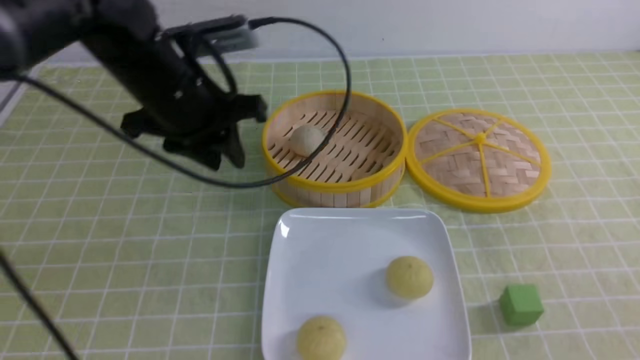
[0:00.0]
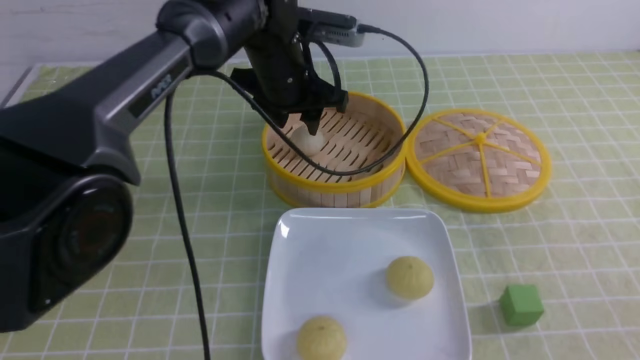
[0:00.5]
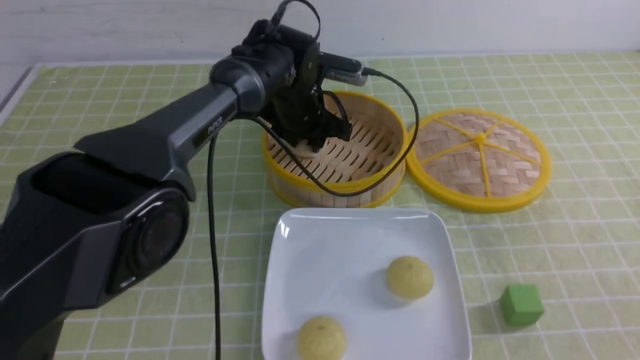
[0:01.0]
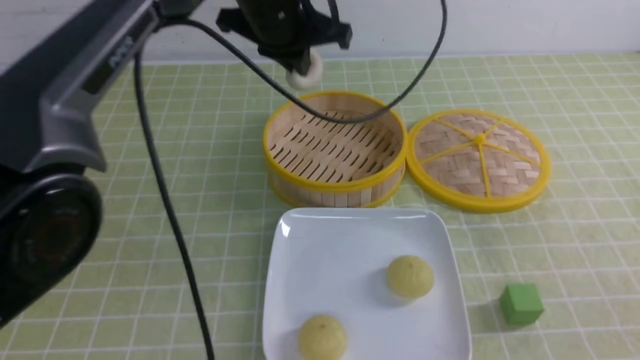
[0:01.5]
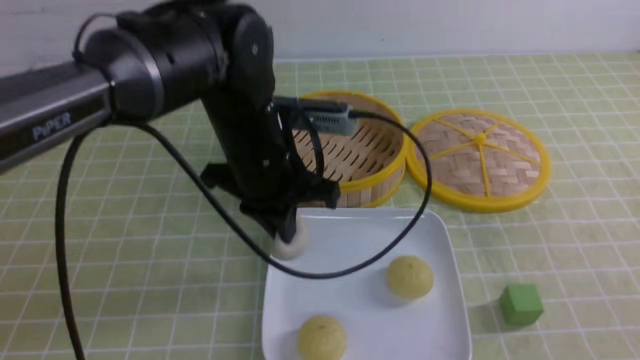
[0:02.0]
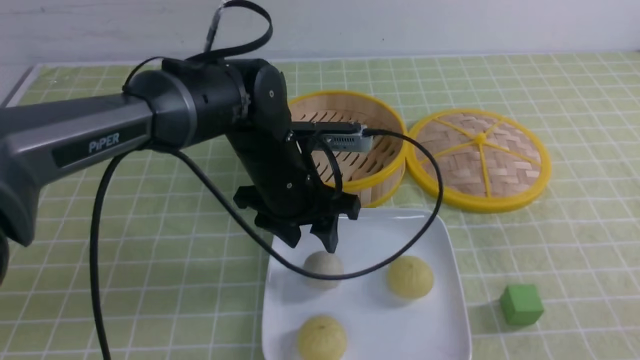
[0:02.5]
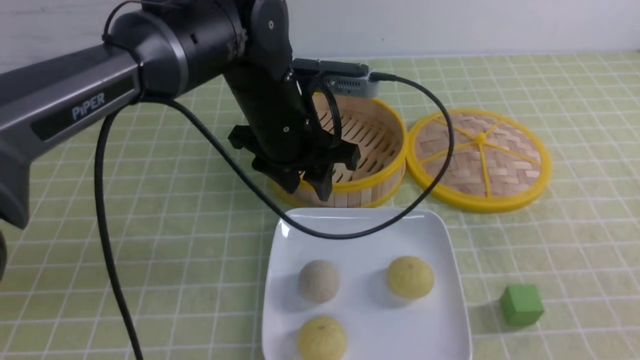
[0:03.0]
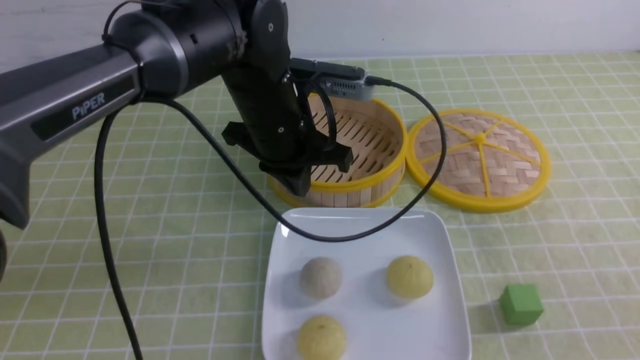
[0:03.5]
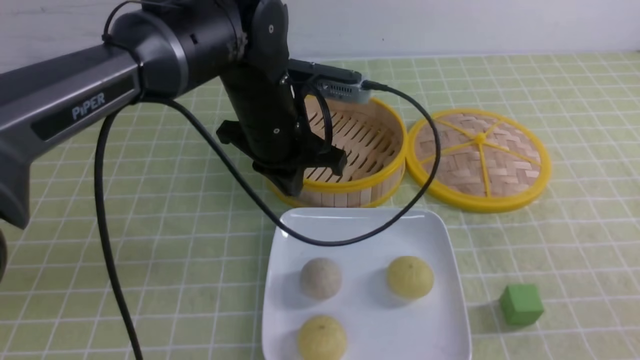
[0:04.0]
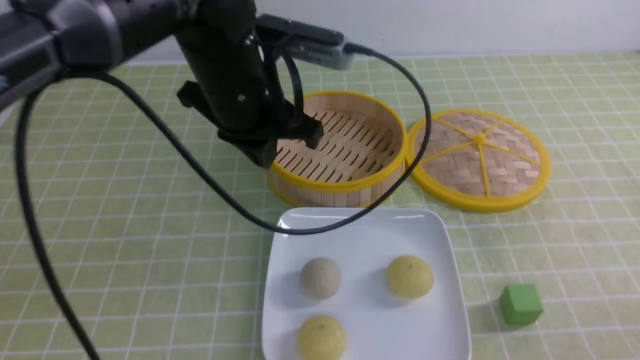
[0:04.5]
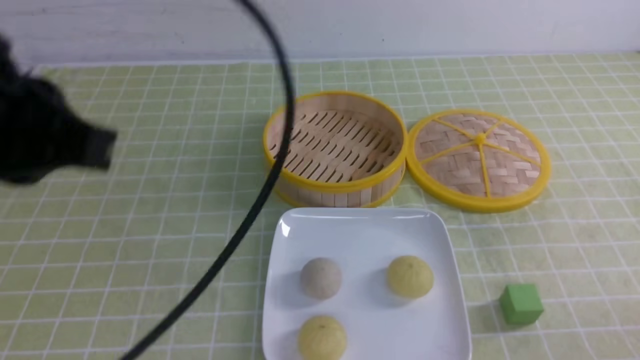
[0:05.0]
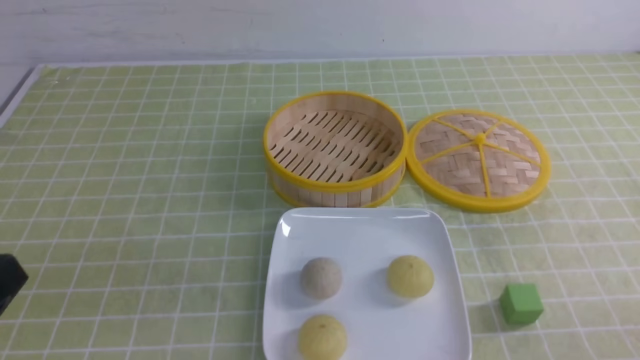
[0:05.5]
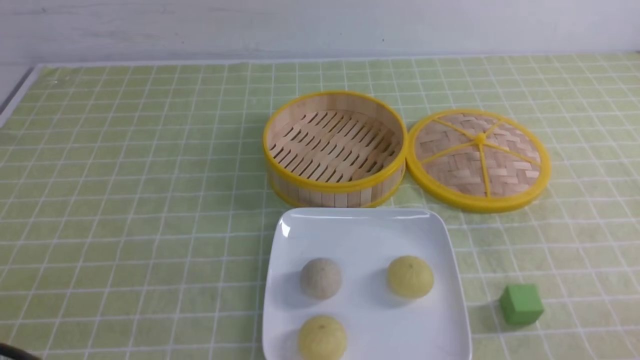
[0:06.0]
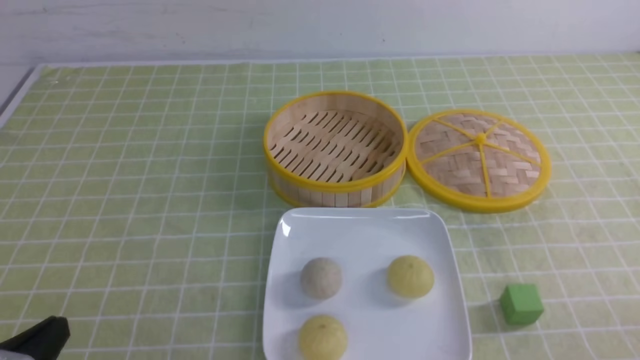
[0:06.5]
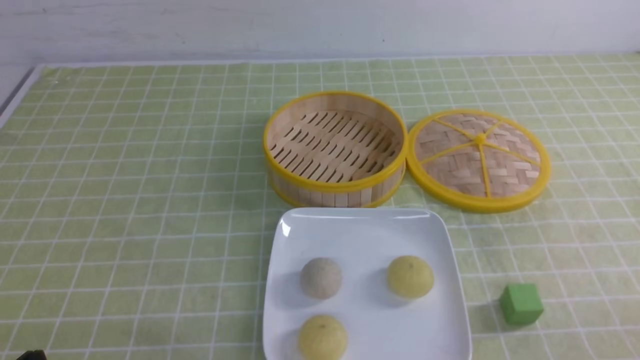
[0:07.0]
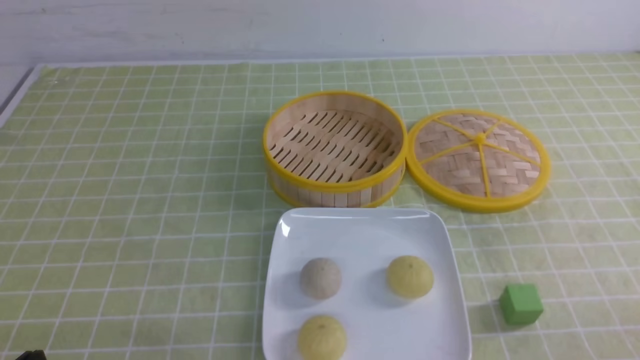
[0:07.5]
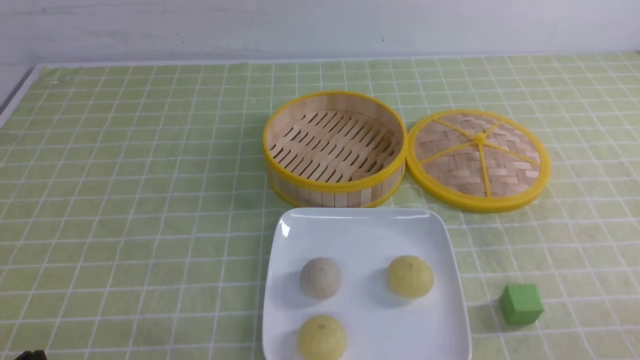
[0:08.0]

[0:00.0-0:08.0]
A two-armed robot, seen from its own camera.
Step, 0:01.5 to 0:02.0: use the left arm to put the steamed stuffed bun into the plate.
0:00.0 to 0:02.0: The left gripper moves to the right, about 10 cm, reaches roughly 10 cm forward, then returns, and closes its fingers.
0:02.0 to 0:04.0: The left gripper opens and closes again.
0:04.0 to 0:06.0: The right gripper heads downward, covering roughly 10 cm; the left gripper travels backward and to the left by about 35 cm.

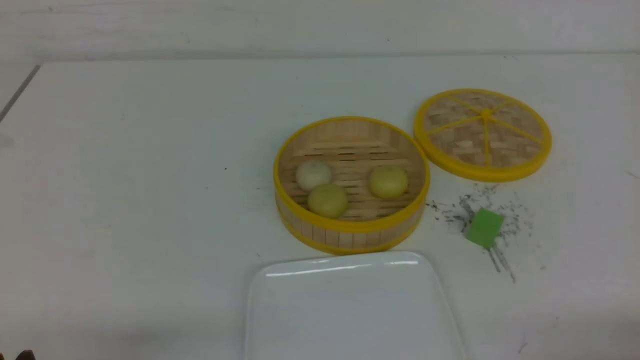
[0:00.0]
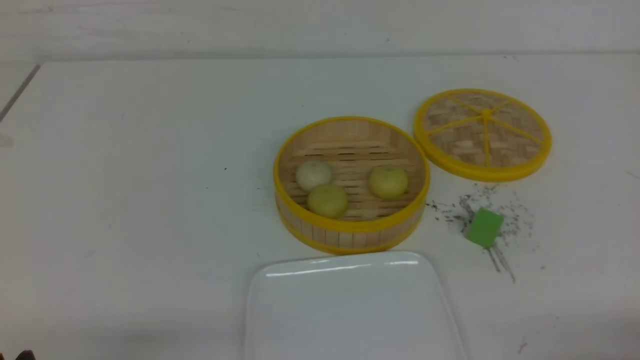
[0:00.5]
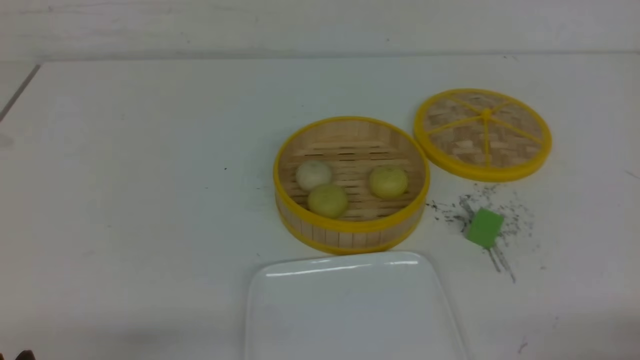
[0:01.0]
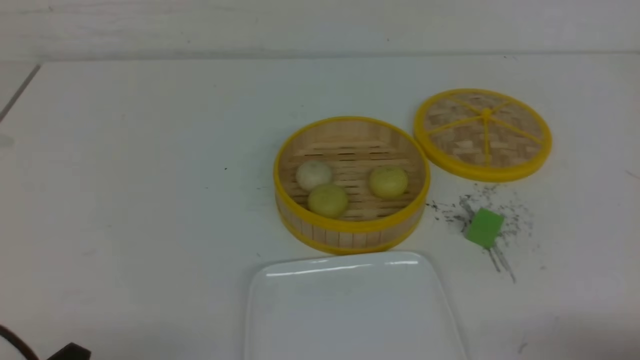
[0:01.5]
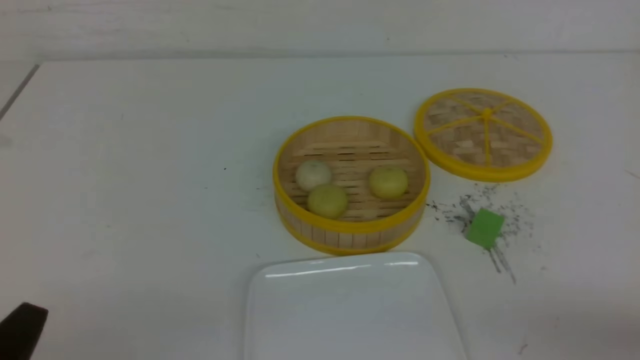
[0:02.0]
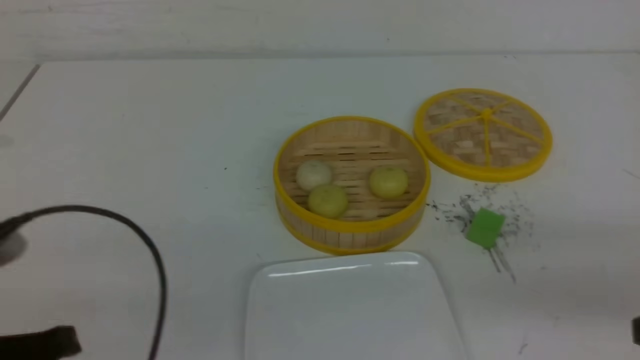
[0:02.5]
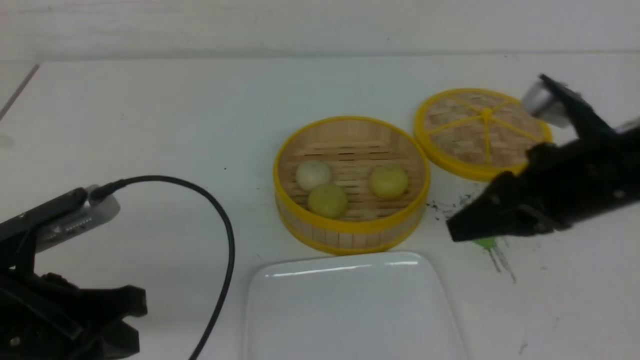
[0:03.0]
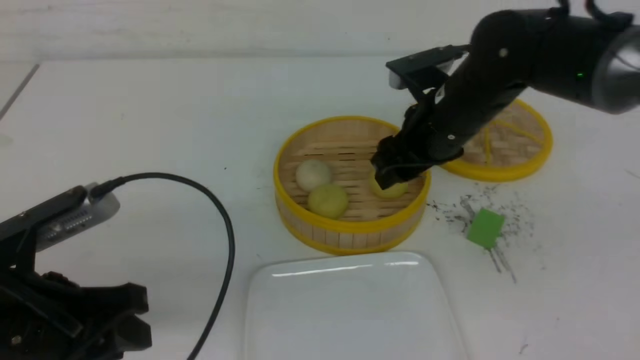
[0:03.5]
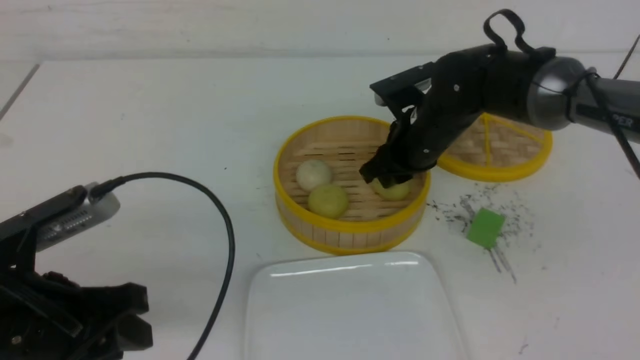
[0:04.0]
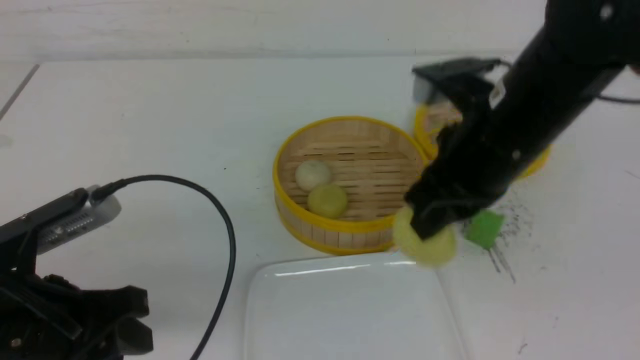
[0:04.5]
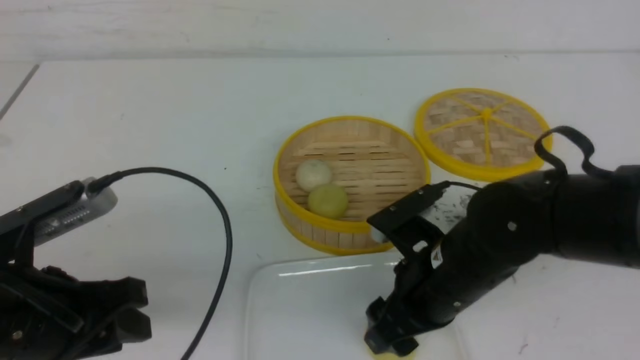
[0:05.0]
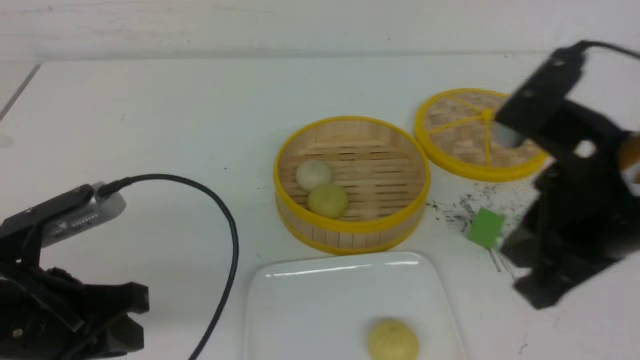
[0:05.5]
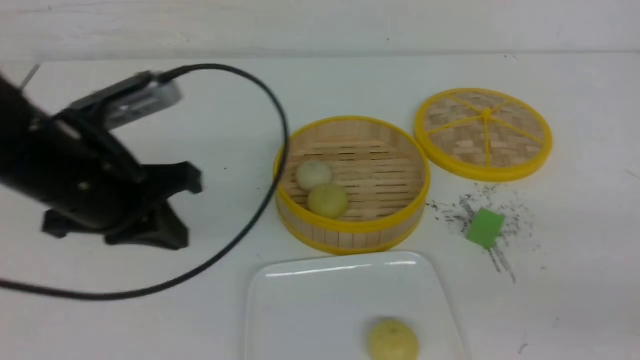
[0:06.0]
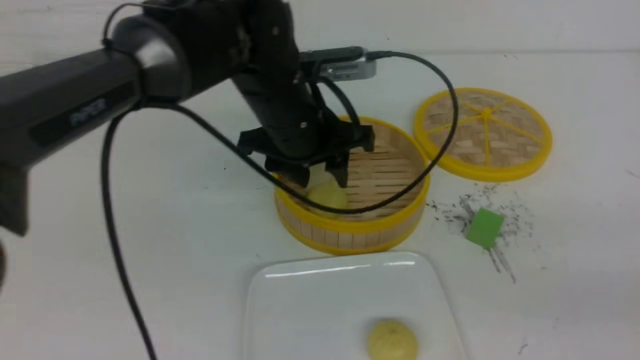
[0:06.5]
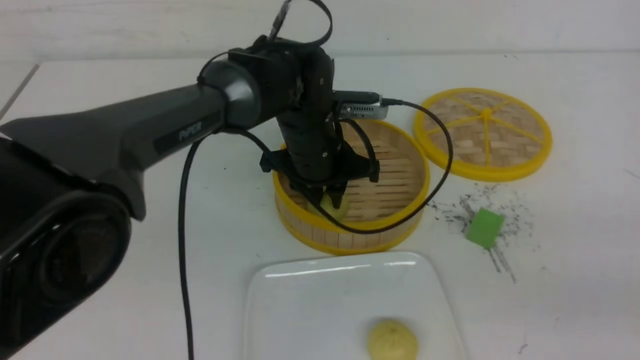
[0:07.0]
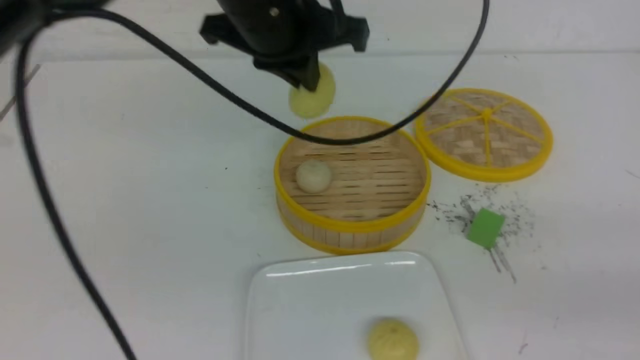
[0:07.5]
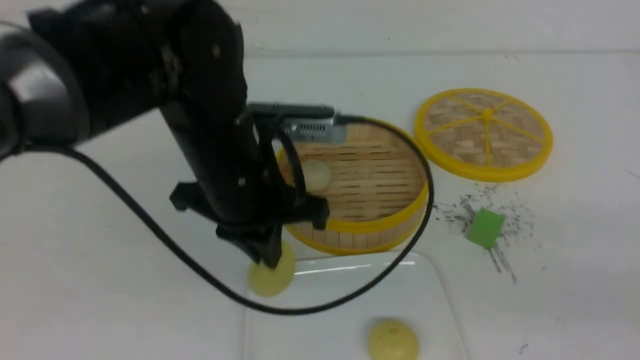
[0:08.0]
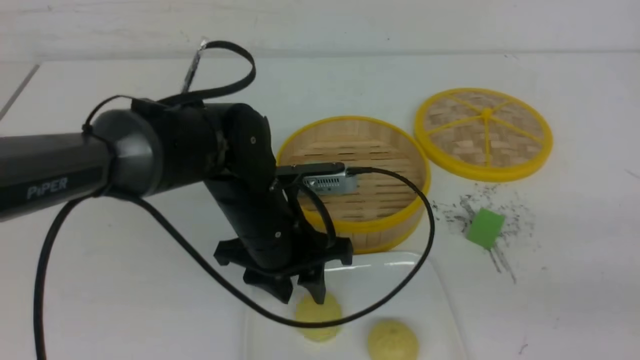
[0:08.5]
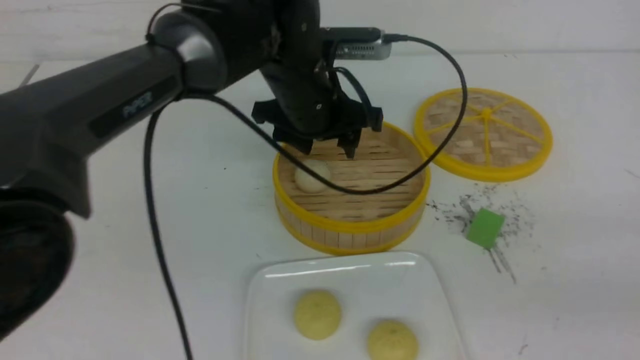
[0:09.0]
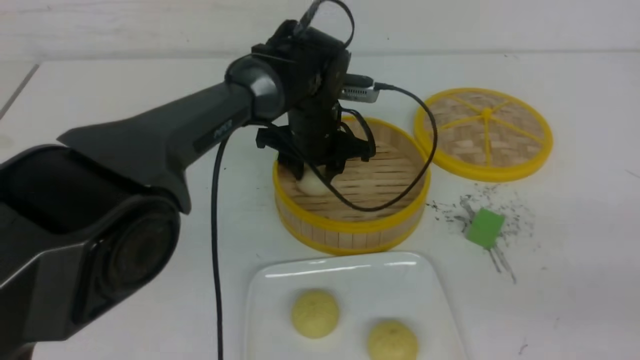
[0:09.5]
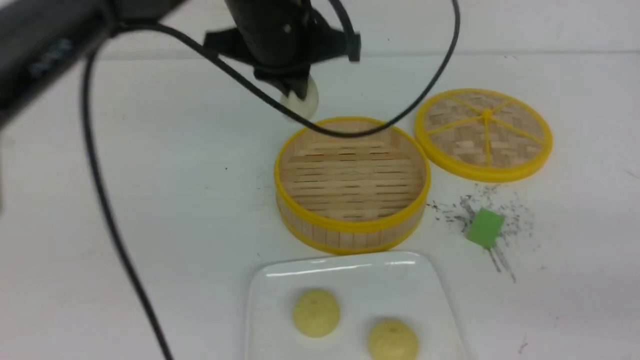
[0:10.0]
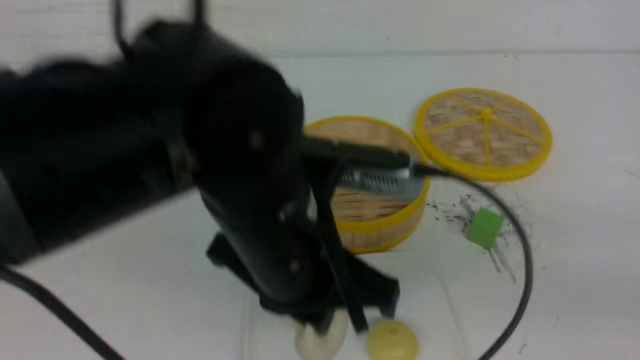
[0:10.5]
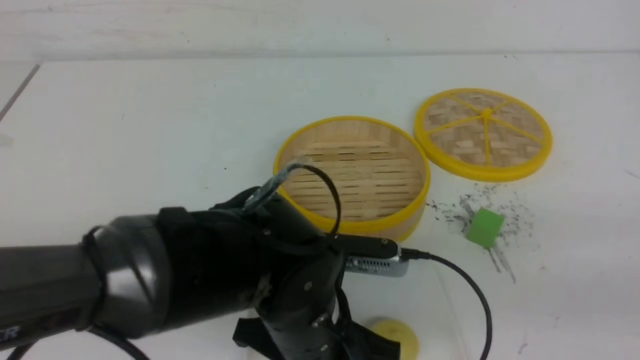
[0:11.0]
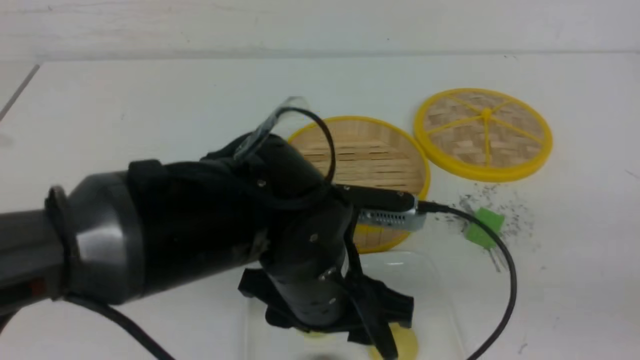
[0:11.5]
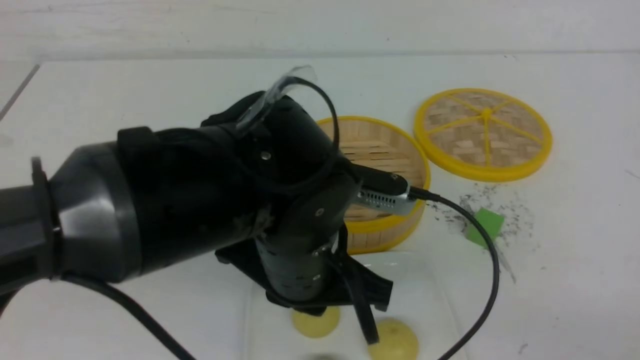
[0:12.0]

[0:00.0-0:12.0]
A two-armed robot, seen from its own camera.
Step, 0:00.0 to 0:04.0: use the right arm to grab the steamed stuffed bun that is closest to it.
Step, 0:04.5 to 0:05.0: use the right arm to put the steamed stuffed bun into the plate.
Step, 0:05.5 to 0:07.0: use the left arm to grab the steamed stuffed bun that is closest to it.
Step, 0:07.5 to 0:08.0: use the left arm to put the steamed stuffed bun into the plate.
Step, 0:09.0 to 0:09.5: use the left arm to grab the steamed stuffed bun that is closest to it.
Step, 0:10.0 to 0:11.0: use the left arm to put the steamed stuffed bun into the plate.
0:02.0 to 0:04.0: The right gripper travels forward and to the left by about 40 cm, and opens, then closes once more. Meanwhile the left gripper travels forward by some 10 cm.
0:04.0 to 0:06.0: The left gripper moves forward, to the right and upward, approximately 10 cm, and closes, while the right gripper heads backward and to the right, covering approximately 35 cm, and closes.
0:06.0 to 0:08.0: The left gripper shifts approximately 10 cm to the right, and opens, then closes once more.
0:08.0 to 0:10.0: The left gripper goes up and down, about 15 cm each way, reversing 3 times, and opens and closes again.
0:10.0 to 0:12.0: The right gripper is displaced backward by about 10 cm; the left gripper is displaced backward and downward by approximately 20 cm, and opens and closes again.
